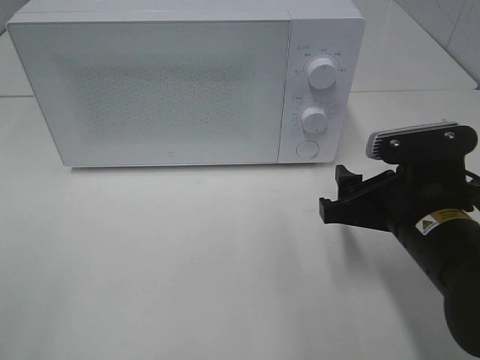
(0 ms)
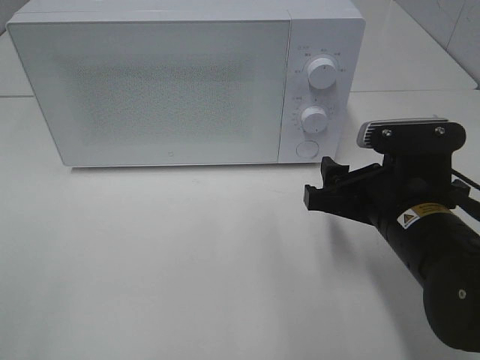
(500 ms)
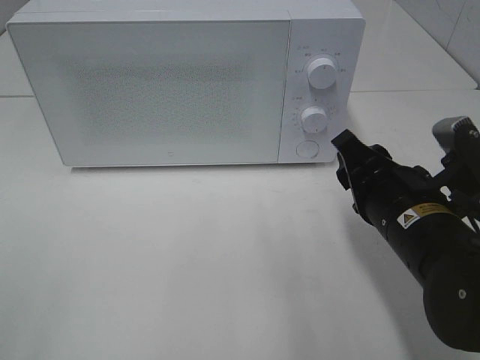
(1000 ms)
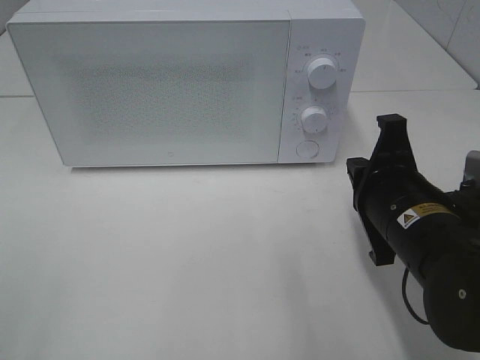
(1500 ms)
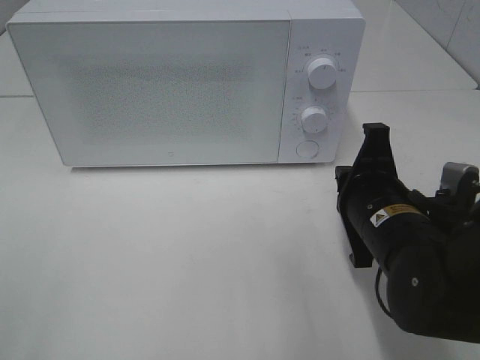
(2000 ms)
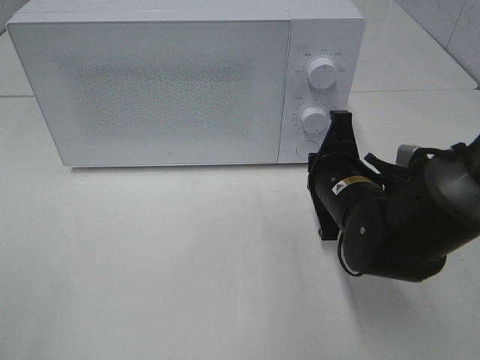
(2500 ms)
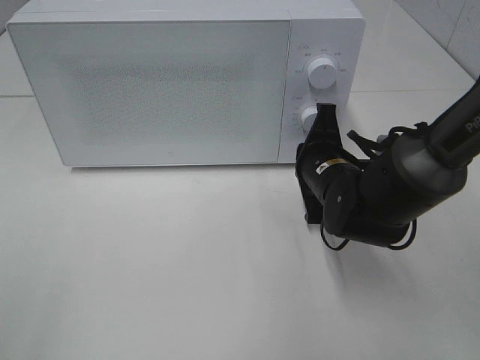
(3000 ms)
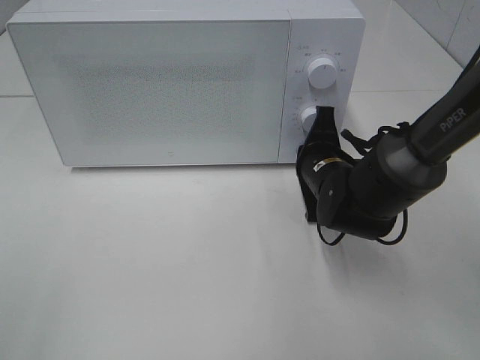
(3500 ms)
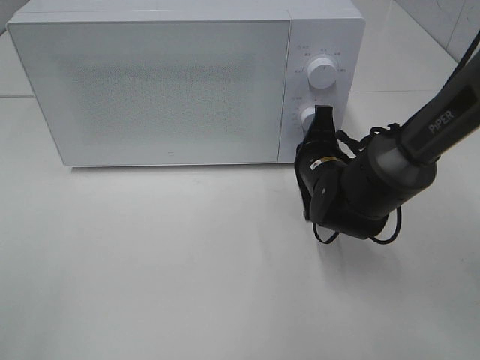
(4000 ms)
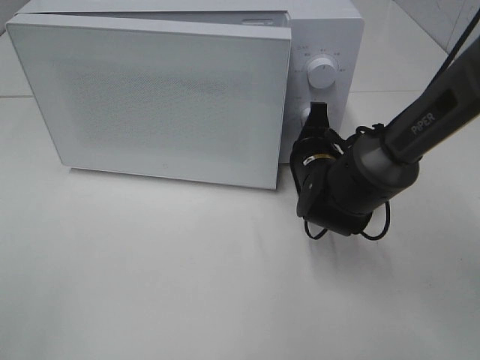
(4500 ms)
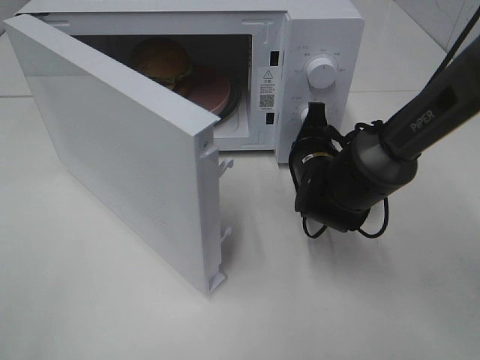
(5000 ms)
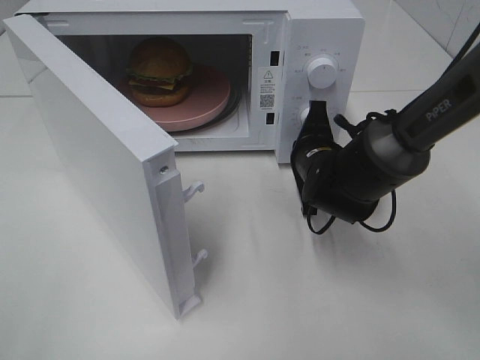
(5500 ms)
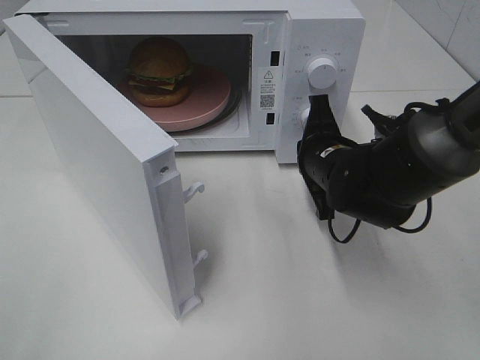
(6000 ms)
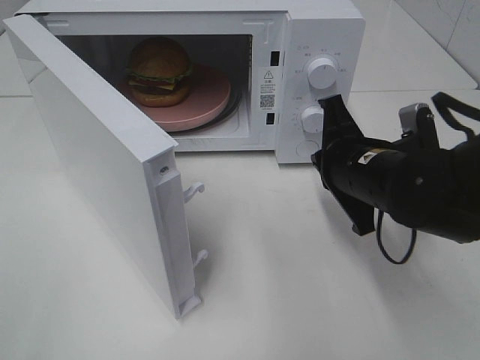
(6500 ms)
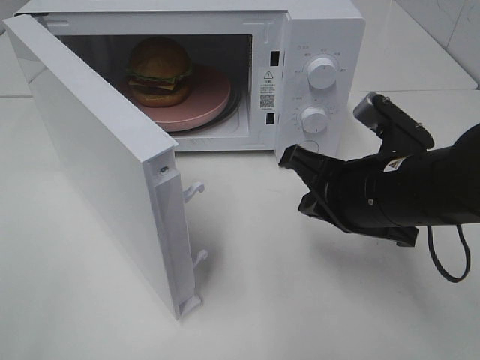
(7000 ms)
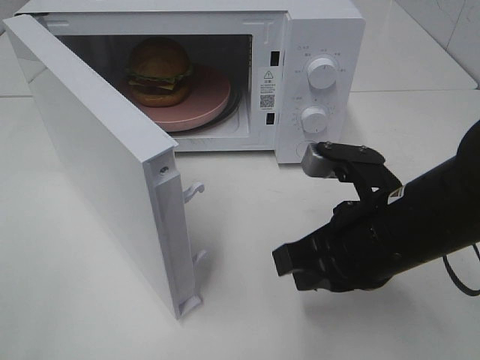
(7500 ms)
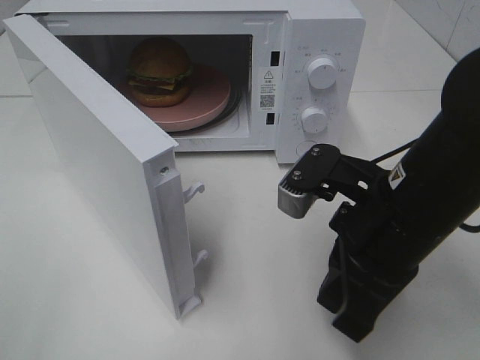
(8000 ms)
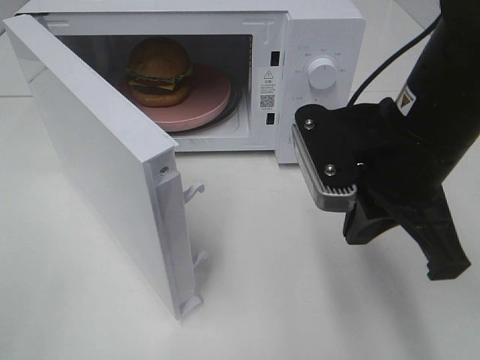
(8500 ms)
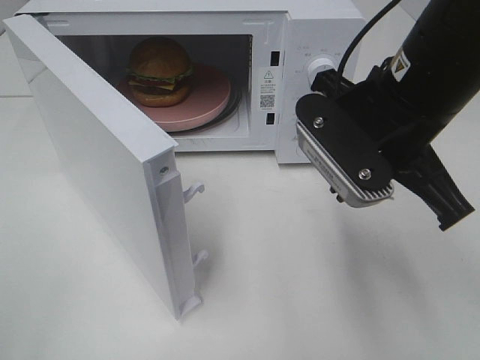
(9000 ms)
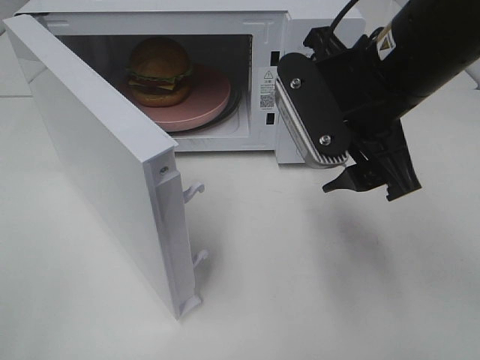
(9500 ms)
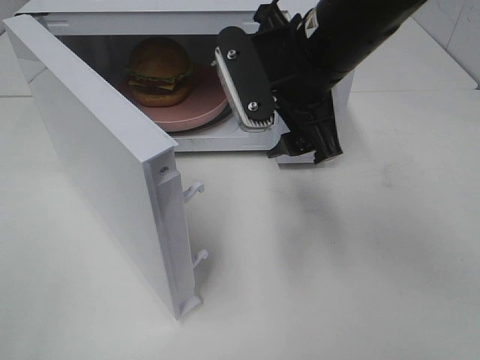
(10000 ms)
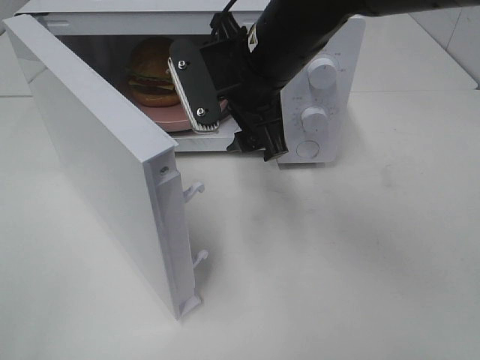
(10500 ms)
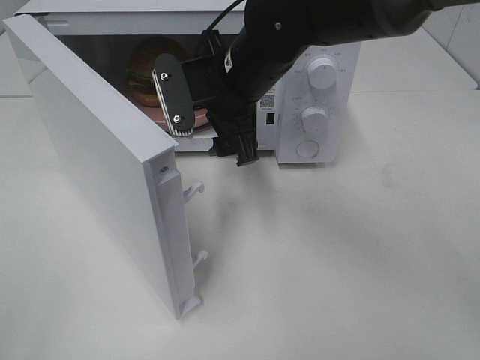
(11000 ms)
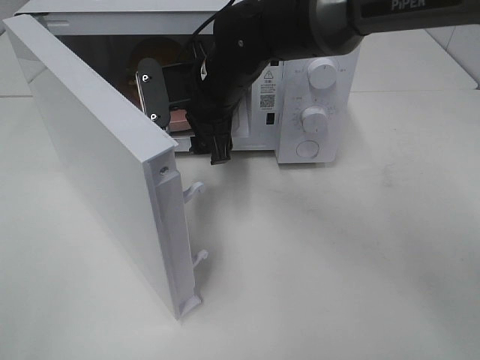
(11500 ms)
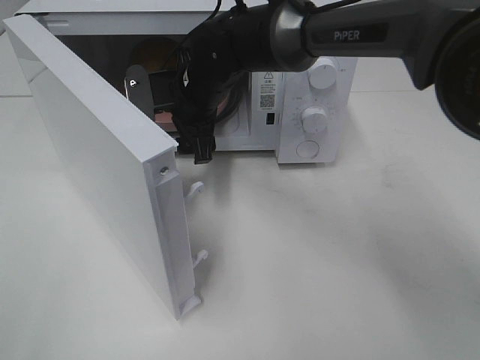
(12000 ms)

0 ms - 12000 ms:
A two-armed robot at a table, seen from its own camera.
Task of the whole recording: Heat the burger.
Step, 0 ms - 5500 ms: Right hand: press the switch.
0 ms - 2000 ms: The right gripper closes up.
2000 ms - 4000 ms: The right gripper moves forward, roughly 10 cm.
6000 ms - 8000 ms: The right gripper travels backward and upward by about 15 cm.
8000 ms - 10000 ms: The right gripper goes some 15 cm forward, upward and to the left, and opens its fingers.
10000 ms - 12000 ms: The right gripper heads forward, to the left and downward, covering approximately 20 cm.

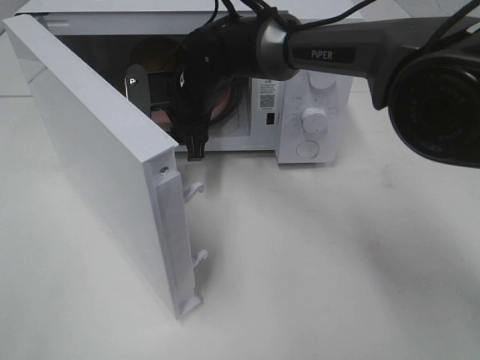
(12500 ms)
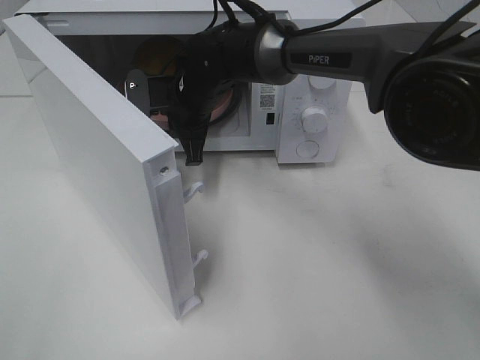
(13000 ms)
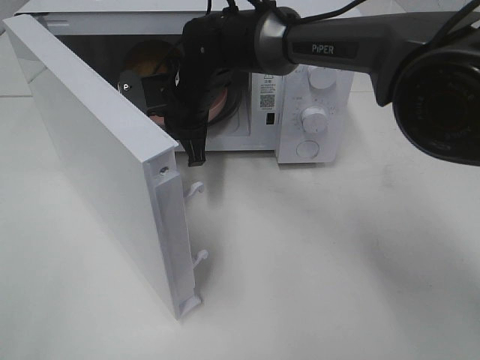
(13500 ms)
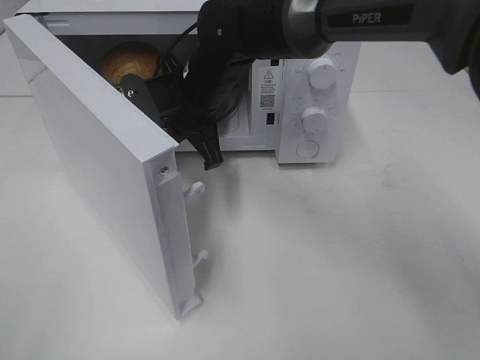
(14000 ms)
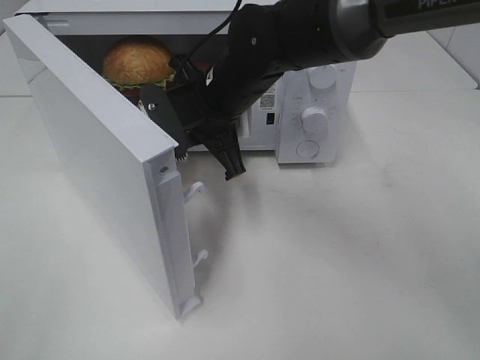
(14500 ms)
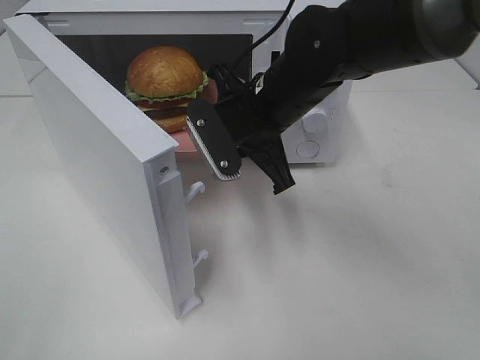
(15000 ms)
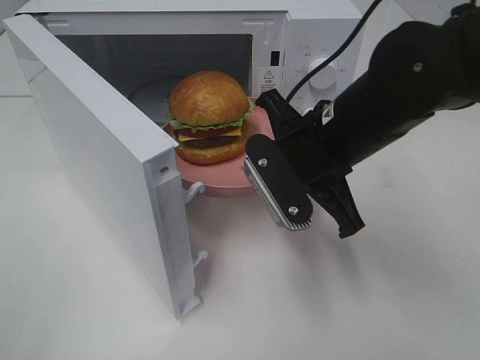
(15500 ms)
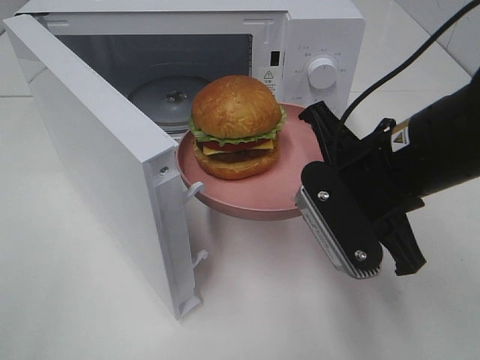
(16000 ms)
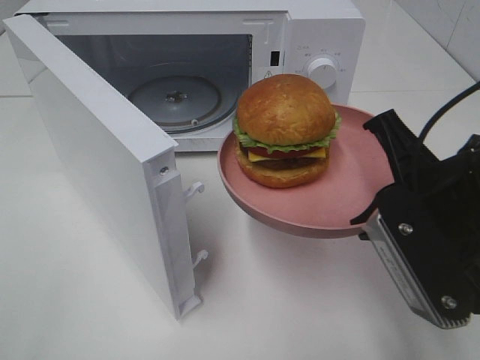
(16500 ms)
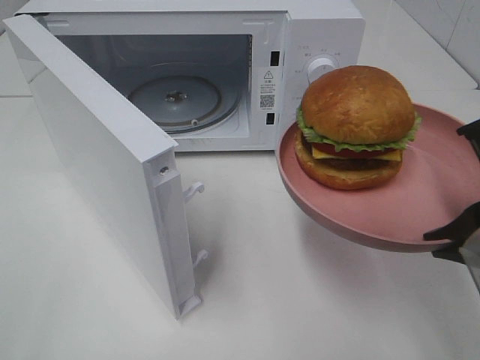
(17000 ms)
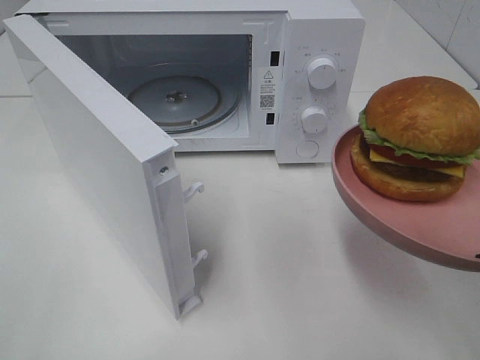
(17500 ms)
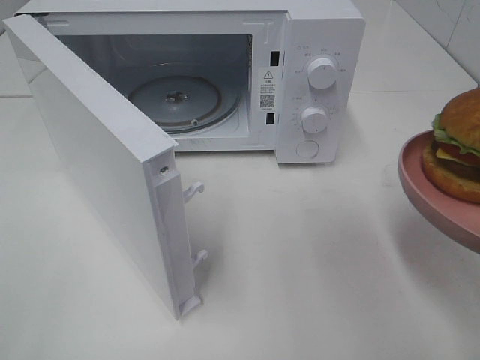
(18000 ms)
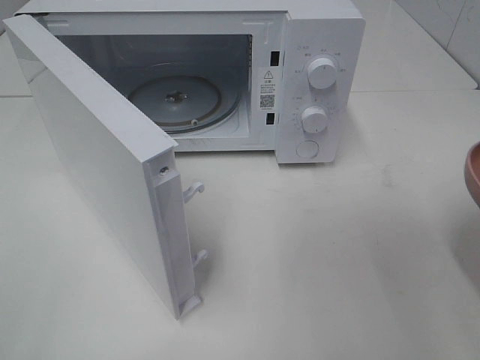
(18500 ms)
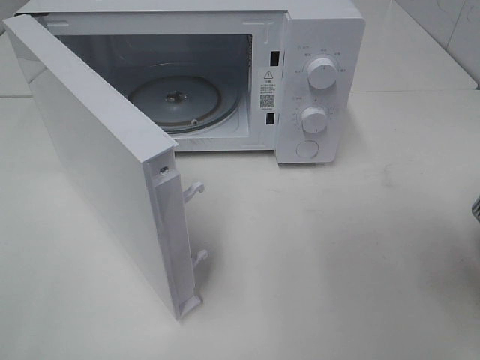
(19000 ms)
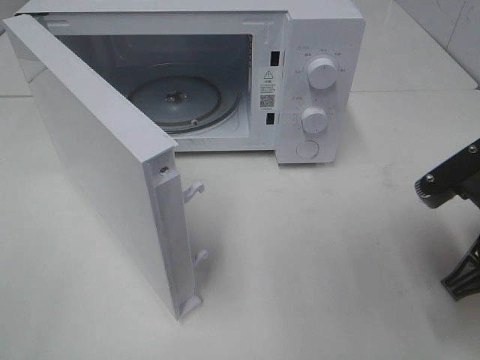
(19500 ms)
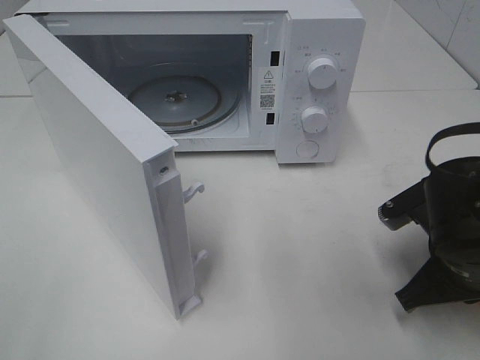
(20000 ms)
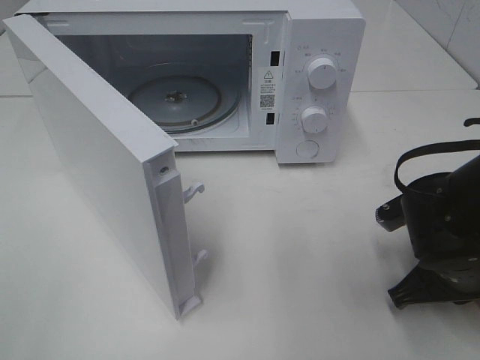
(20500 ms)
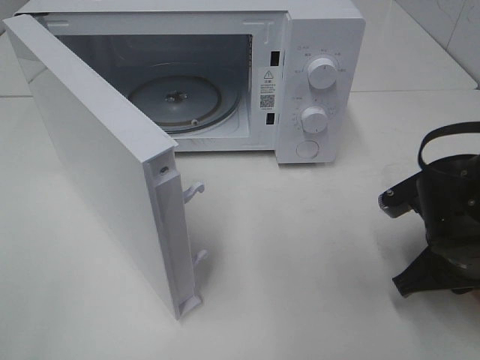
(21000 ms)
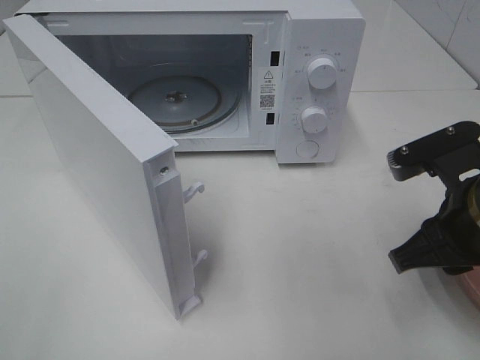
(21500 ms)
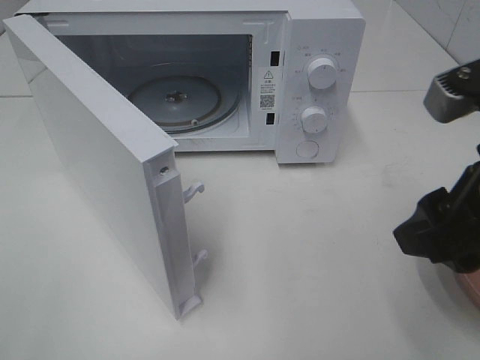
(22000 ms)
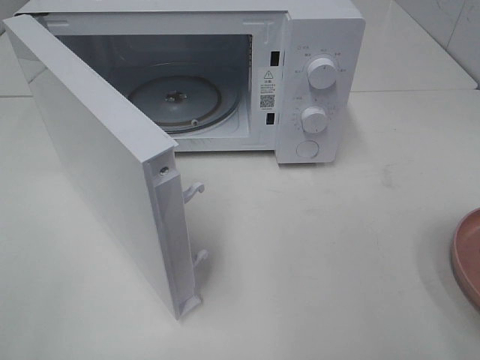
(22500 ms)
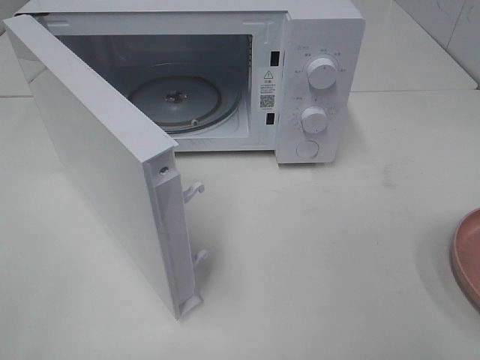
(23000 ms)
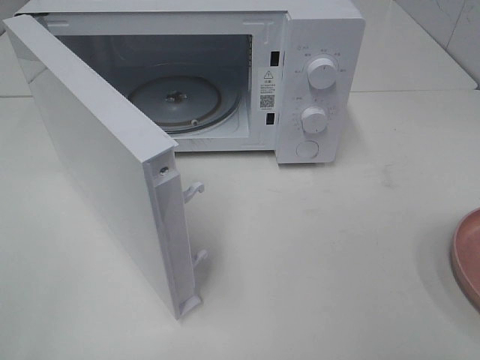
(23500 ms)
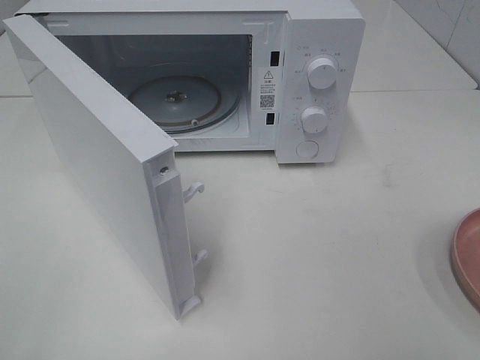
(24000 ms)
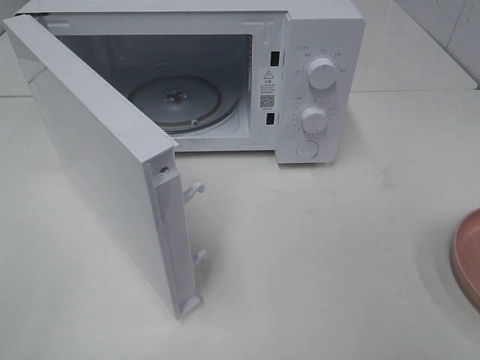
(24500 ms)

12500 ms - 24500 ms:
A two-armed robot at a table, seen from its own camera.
Task of the whole recording: Heat the burger.
Step, 13000 ms - 21000 ms: Right hand: place the plate on the table.
12500 ms - 14500 ms: The right gripper moves backward, roughly 10 cm, and closes.
14500 ms - 16500 ms: The right gripper shifts about 25 cm backward and to the right.
16500 ms - 18500 ms: The right gripper travels to the right and backward by roughly 10 cm.
18500 ms - 20500 ms: The right gripper heads downward and forward, covering approximately 15 cm.
20500 ms - 22500 ms: The right gripper goes some 25 cm upward and backward, and opens its fingers.

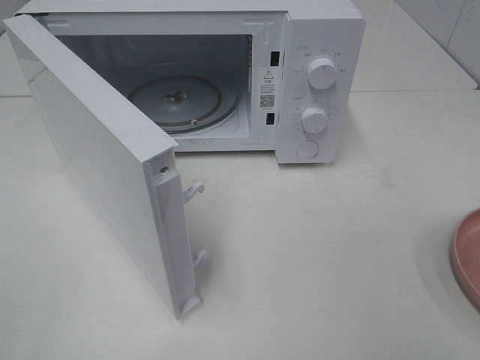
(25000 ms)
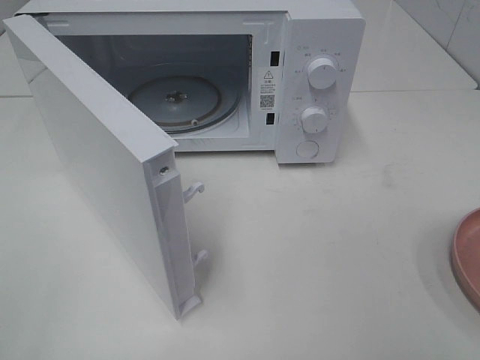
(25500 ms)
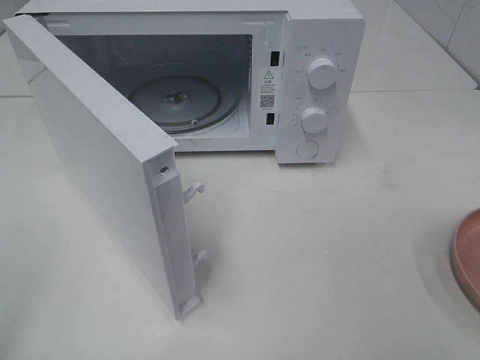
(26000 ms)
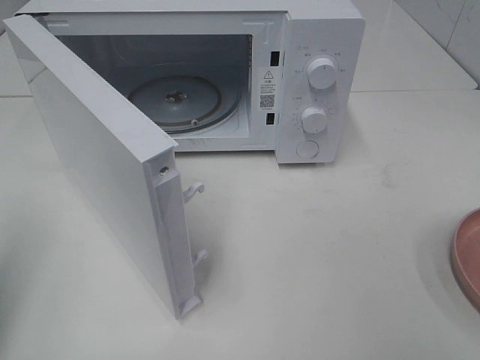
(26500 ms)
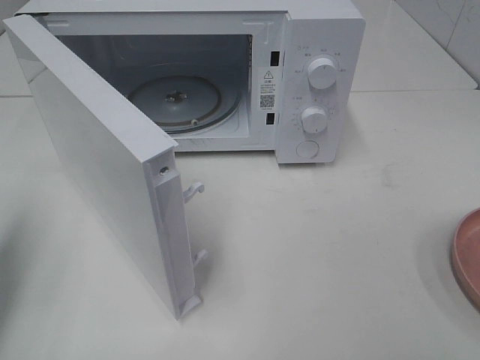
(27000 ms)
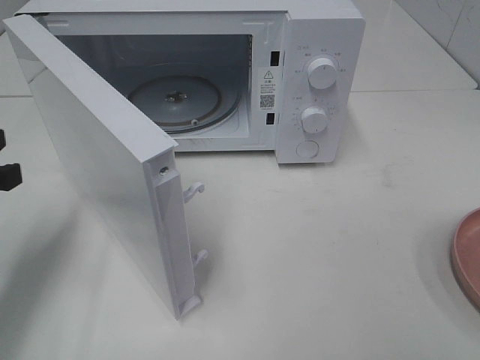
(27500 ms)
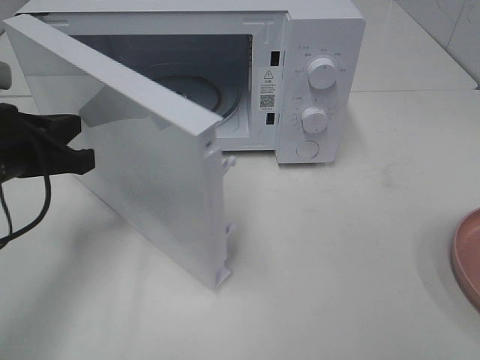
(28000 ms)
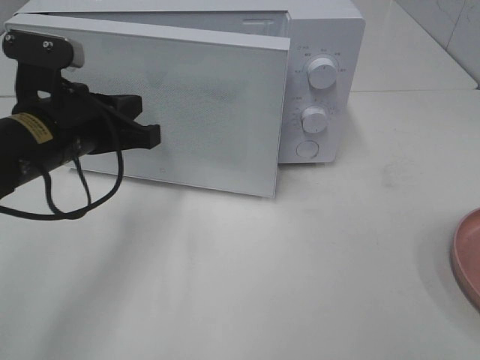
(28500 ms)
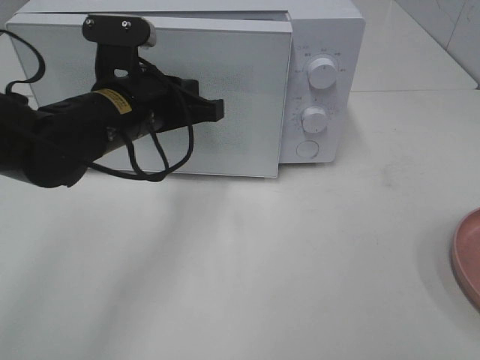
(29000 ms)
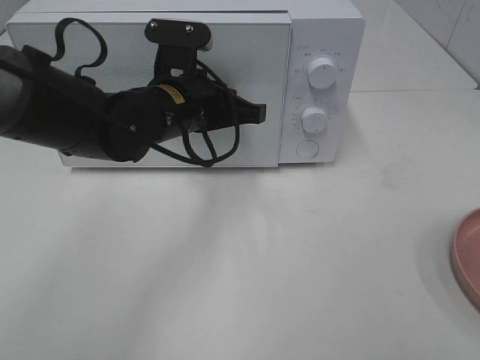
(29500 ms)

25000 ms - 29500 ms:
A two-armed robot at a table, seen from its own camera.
Task of the whole recording: Heat the burger.
25000 ms - 27000 ms: The left gripper moves forward, approximately 20 cm, and closes up.
27000 ms - 29500 ms: The left gripper moves to the right and forward, some 30 cm.
